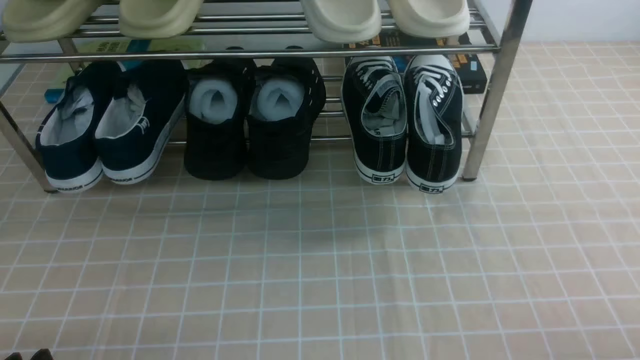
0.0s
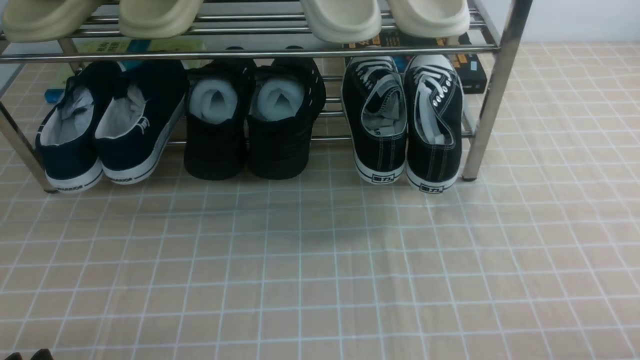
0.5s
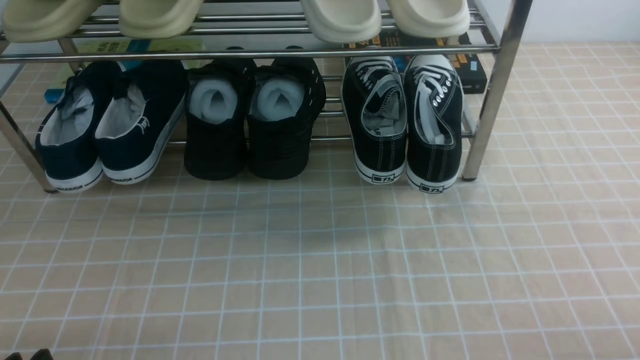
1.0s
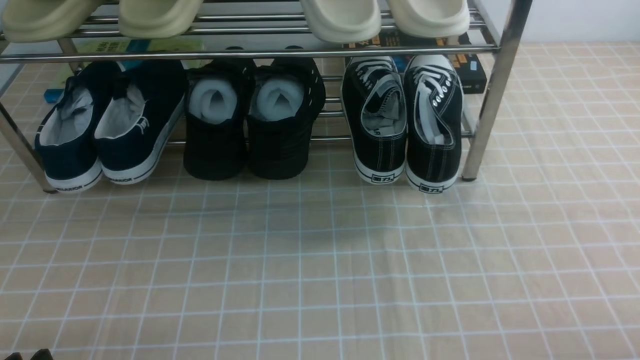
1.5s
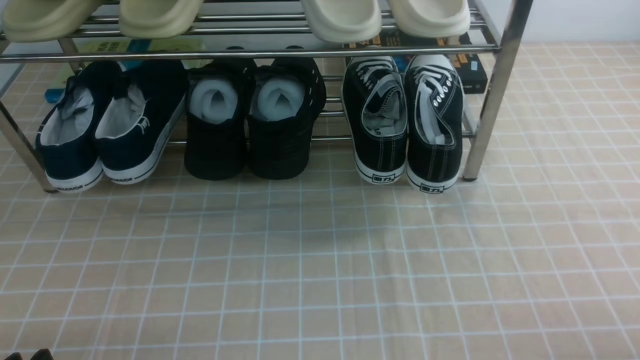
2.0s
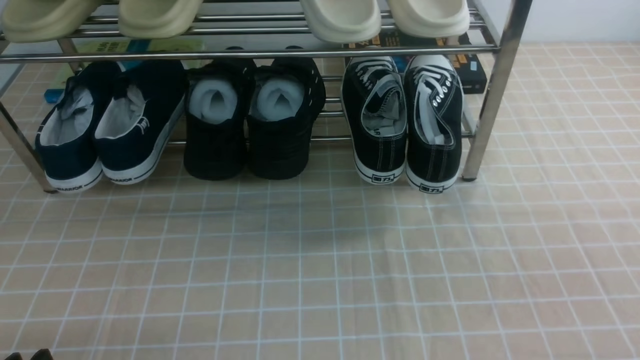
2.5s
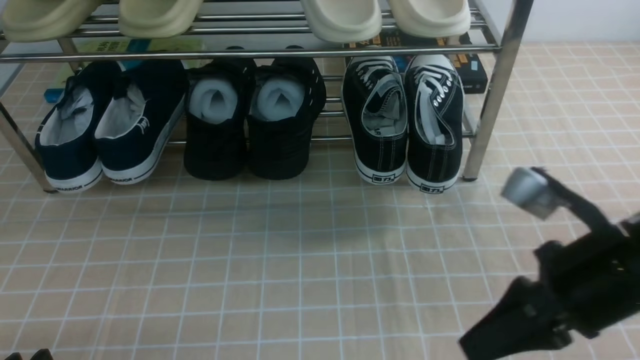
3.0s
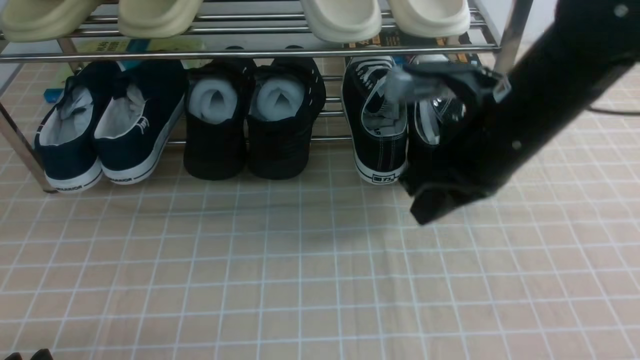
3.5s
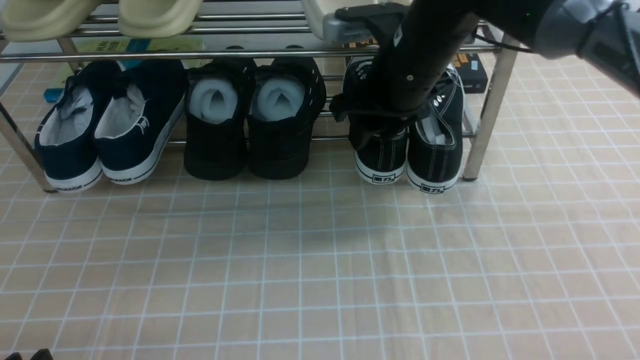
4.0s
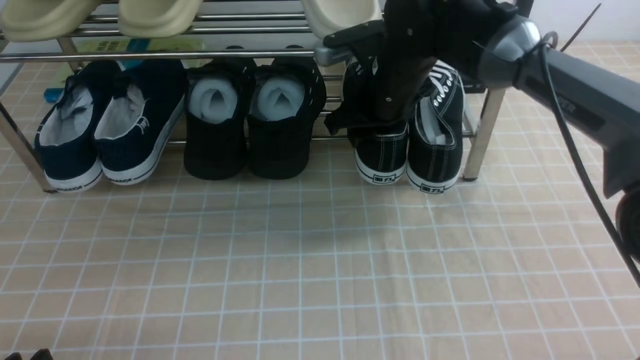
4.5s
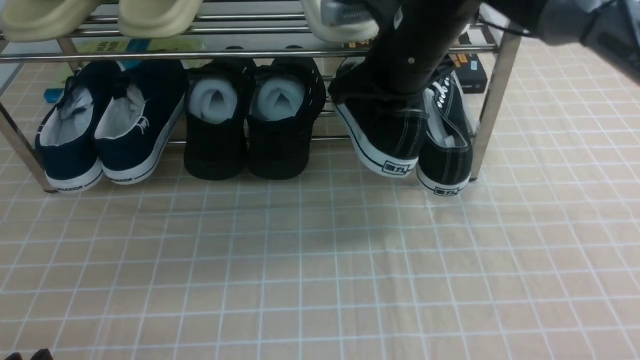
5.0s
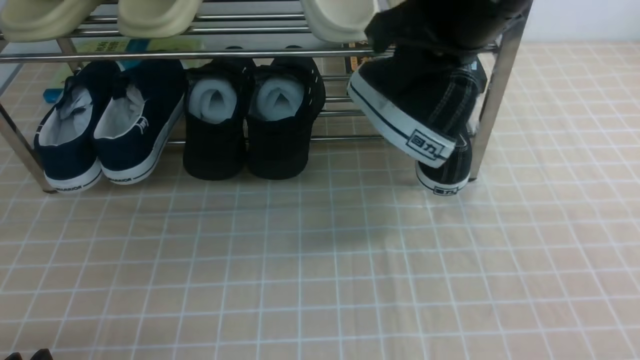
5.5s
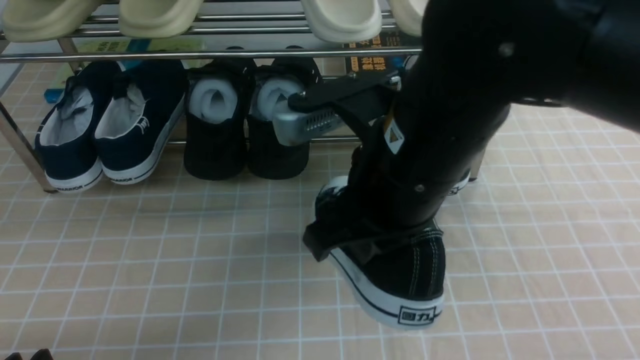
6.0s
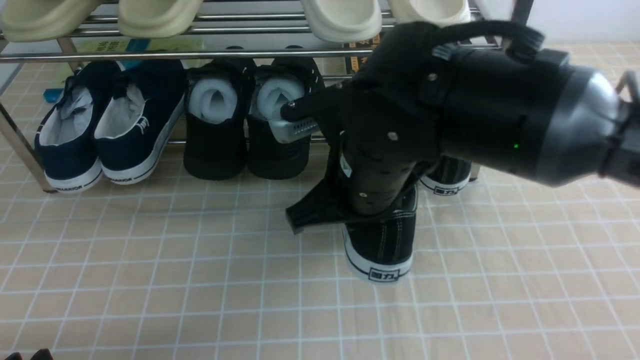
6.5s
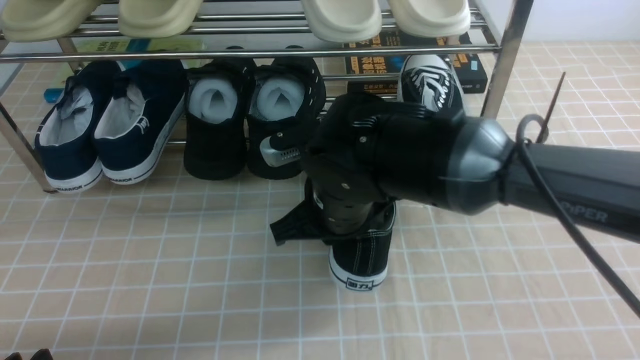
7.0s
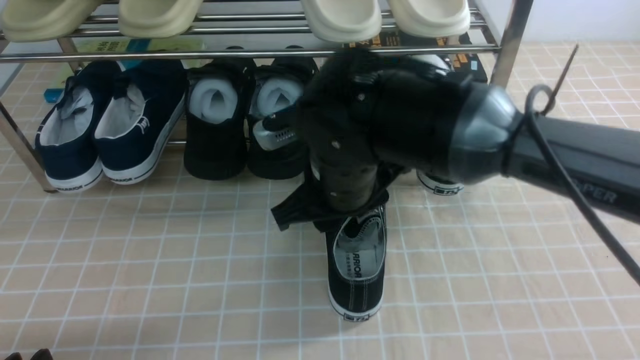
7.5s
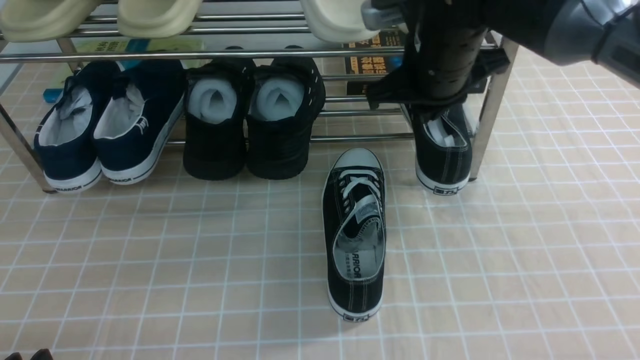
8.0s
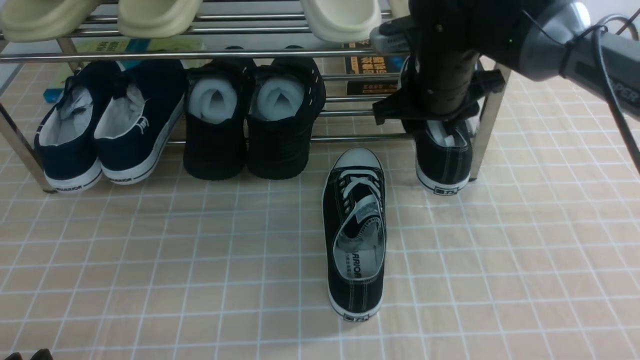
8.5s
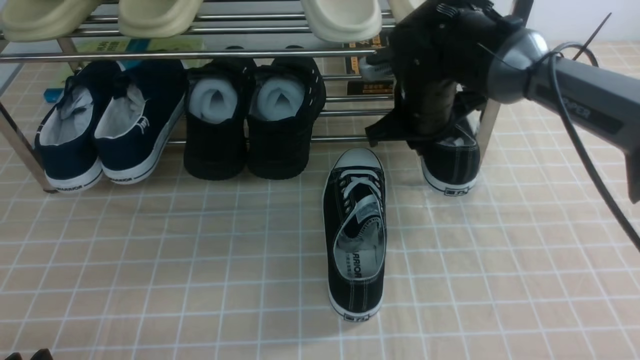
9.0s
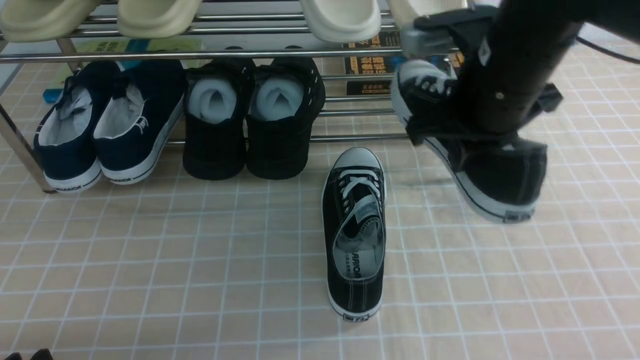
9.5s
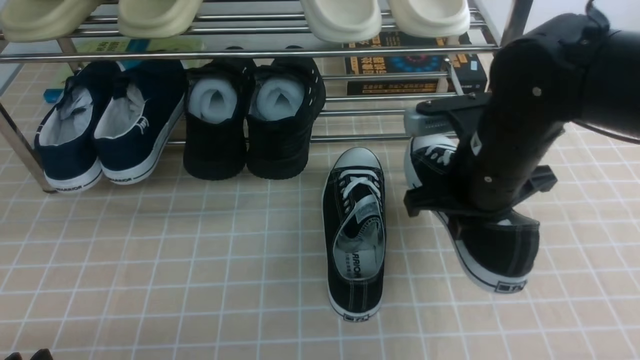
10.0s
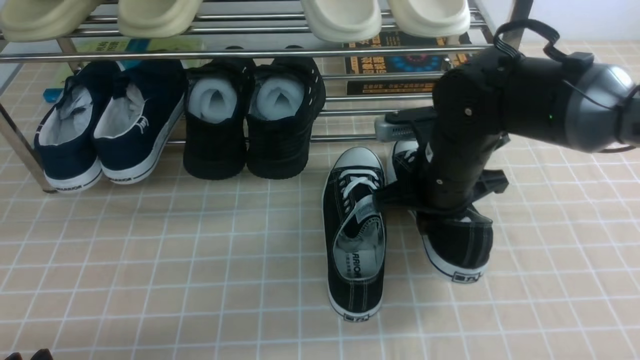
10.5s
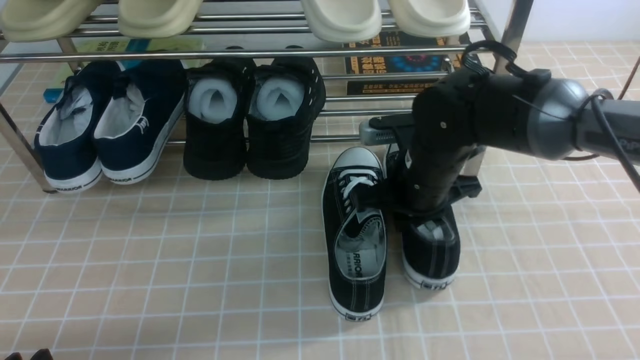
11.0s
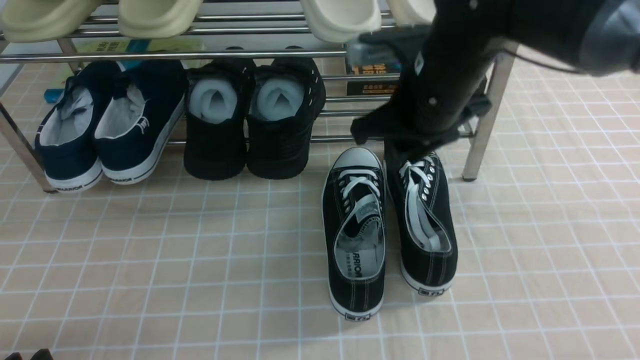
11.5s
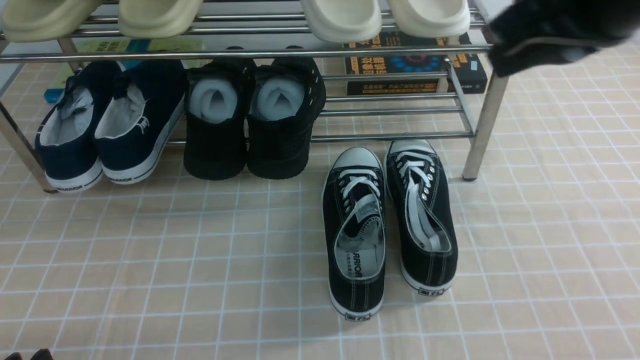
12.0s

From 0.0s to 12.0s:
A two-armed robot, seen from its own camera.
Step, from 0.0s to 4.5s: use the right arm to clamp a shoe on the right side of the shoe rack.
Step, from 5.0s to 7.5s: use the right arm to take out the clamped shoe from the shoe rack and put it down.
Step, from 8.0s to 8.5s: use the right arm to clamp a shoe on the right side of the shoe rack.
Step, from 9.5s to 11.0s: use the right arm to take out the clamped shoe from the shoe rack and put it down.
From 2.0s to 4.0s: The right gripper is displaced forward, to the left and upward by roughly 40 cm, and closes and opens again.
From 4.0s to 6.0s: The right gripper shifts approximately 15 cm backward, and closes.
From 6.0s to 8.0s: The right gripper shifts roughly 15 cm forward and downward, and opens, then closes once more.
From 8.0s to 10.0s: The right gripper shifts some 10 cm backward and to the right, and opens and closes again.
From 10.0s to 12.0s: The right gripper goes approximately 15 cm upward, and opens, then closes again.

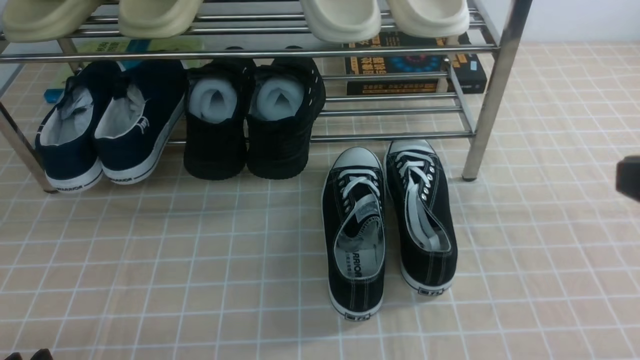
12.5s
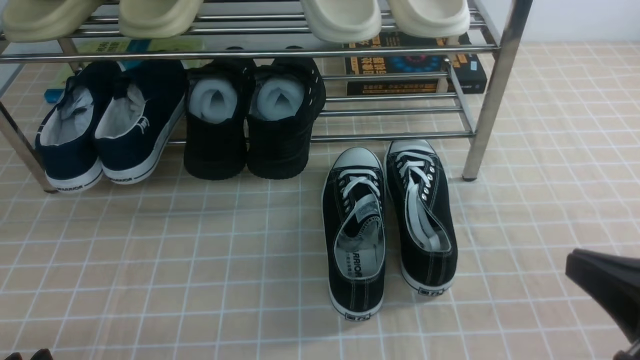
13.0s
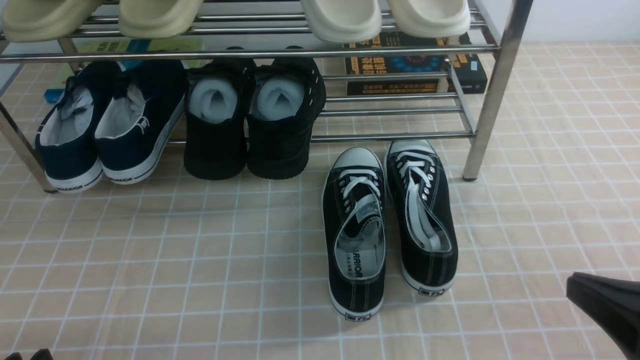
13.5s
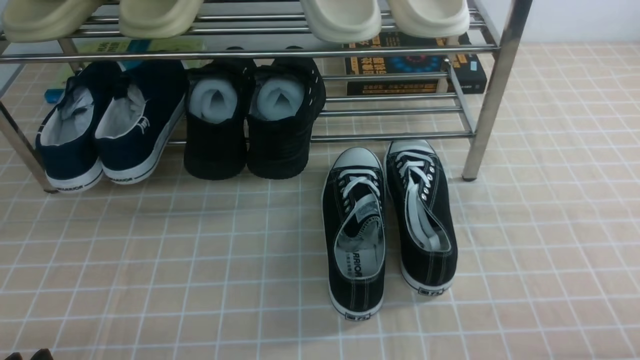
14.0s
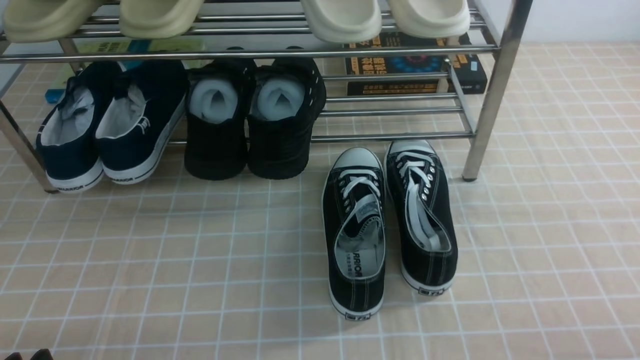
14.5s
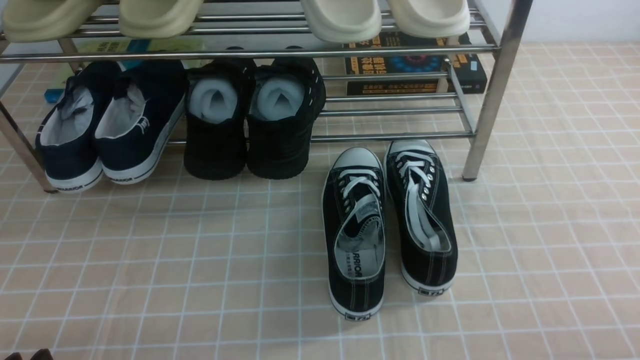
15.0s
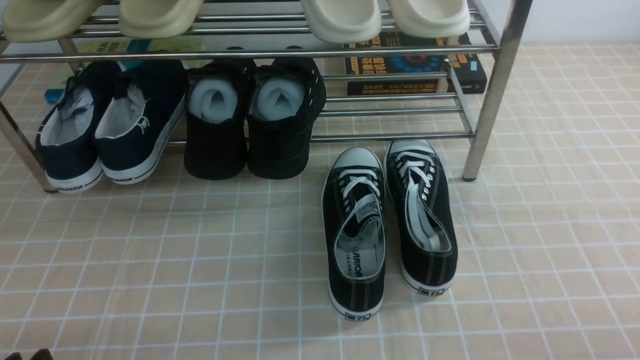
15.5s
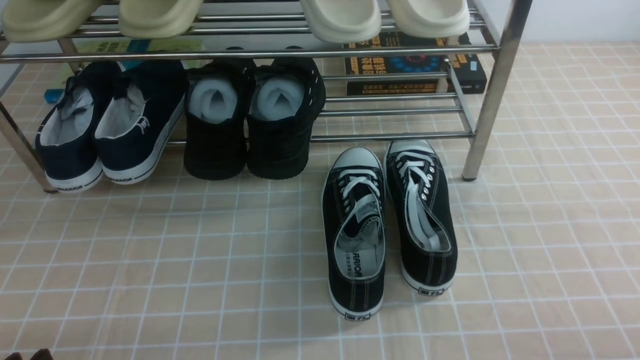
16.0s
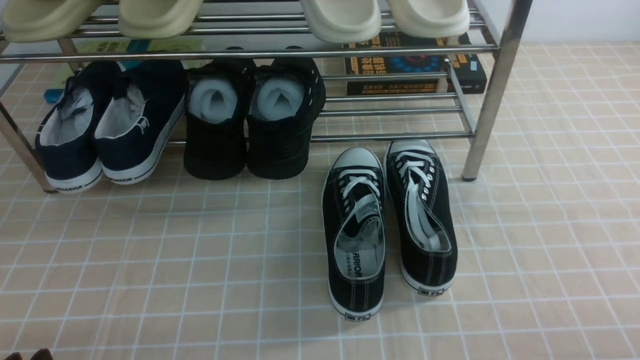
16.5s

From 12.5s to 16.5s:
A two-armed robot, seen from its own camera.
From 14.5s to 16.5s: Both grippers stay put.
